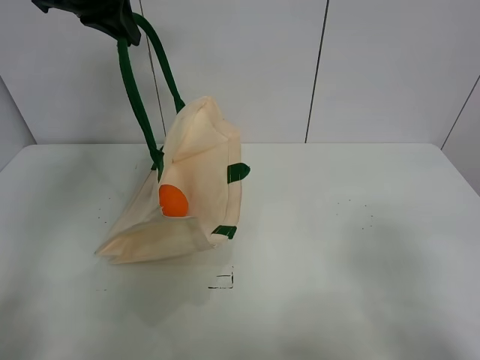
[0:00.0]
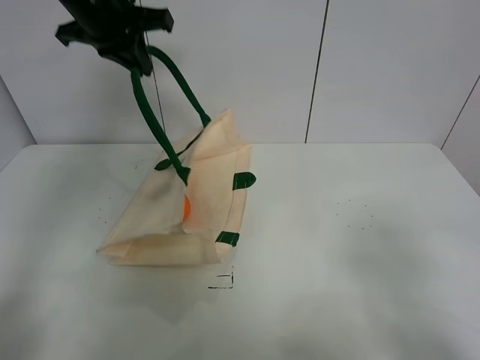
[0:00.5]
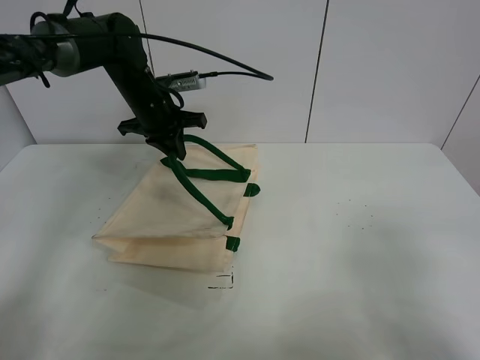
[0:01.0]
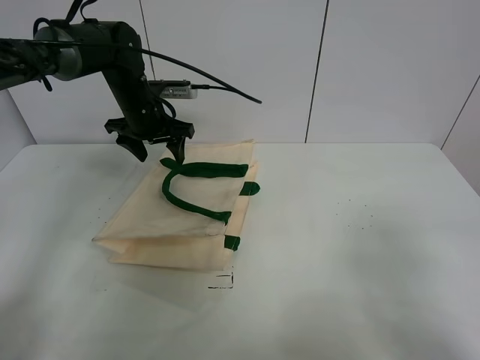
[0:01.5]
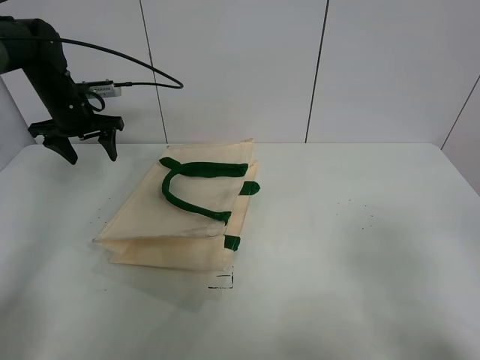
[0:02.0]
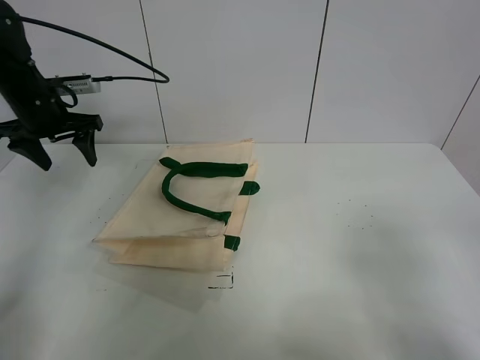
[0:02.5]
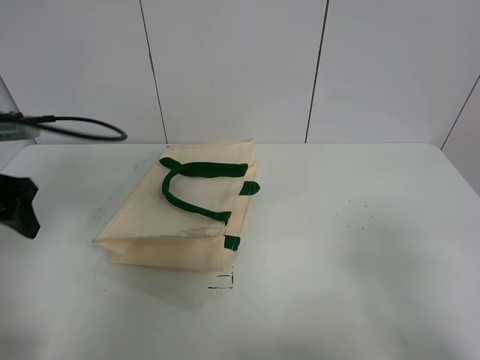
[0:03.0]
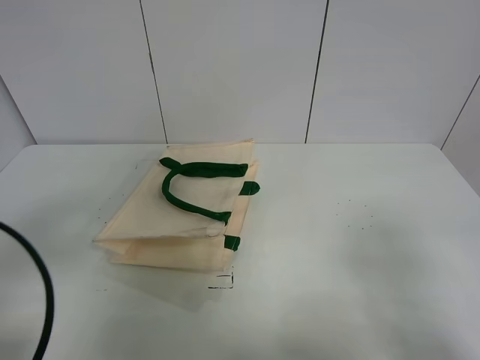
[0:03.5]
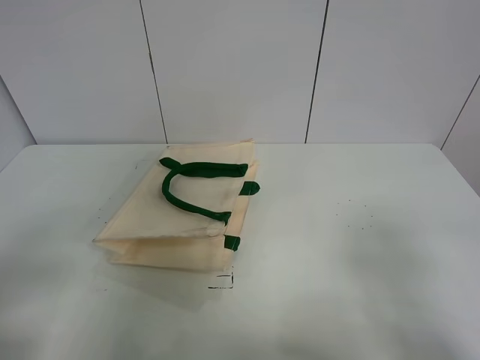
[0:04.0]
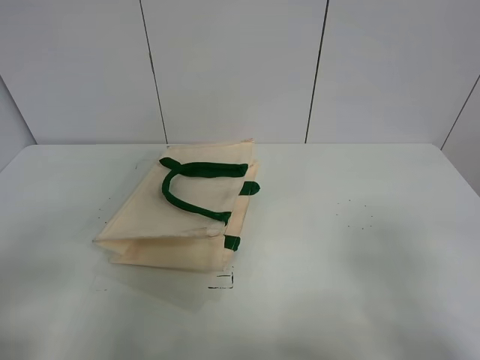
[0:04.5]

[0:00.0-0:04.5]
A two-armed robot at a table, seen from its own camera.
Task of the whole recording: open the white linen bag and put the orange in the bag.
0:00.0 to 0:02.0: The left gripper moves downward and to the left, about 25 cm, and opens up.
0:02.0 to 0:04.5: The left gripper goes some 50 cm backward.
